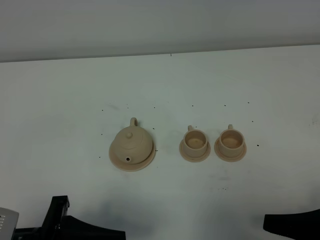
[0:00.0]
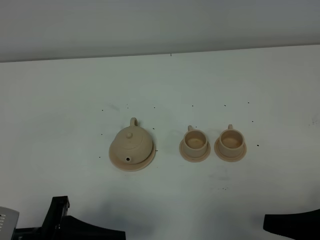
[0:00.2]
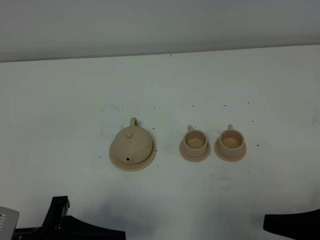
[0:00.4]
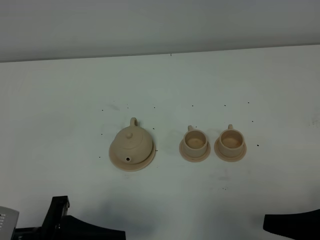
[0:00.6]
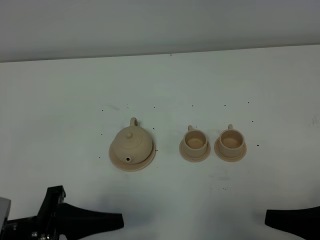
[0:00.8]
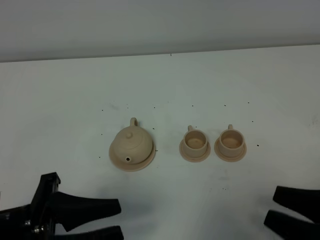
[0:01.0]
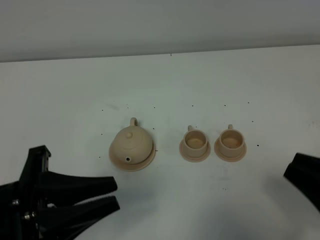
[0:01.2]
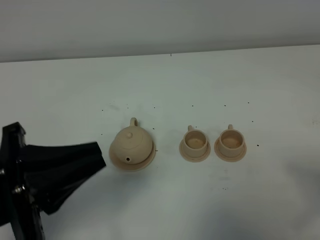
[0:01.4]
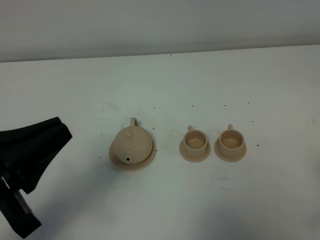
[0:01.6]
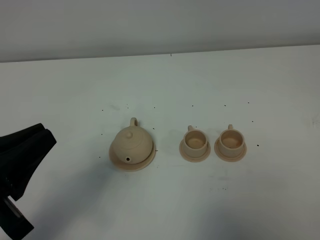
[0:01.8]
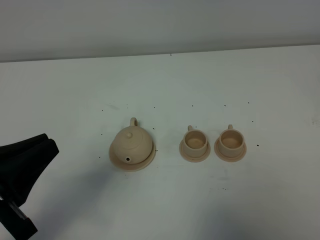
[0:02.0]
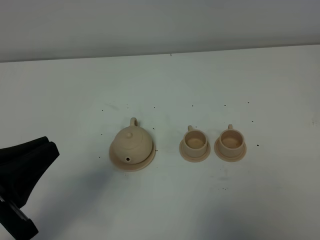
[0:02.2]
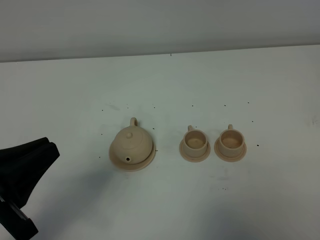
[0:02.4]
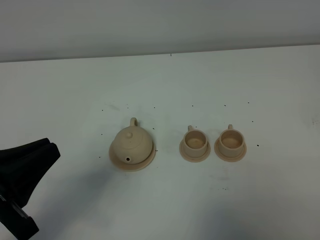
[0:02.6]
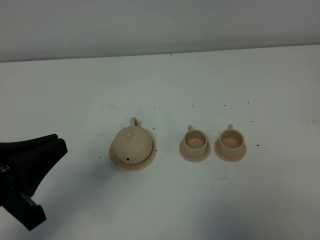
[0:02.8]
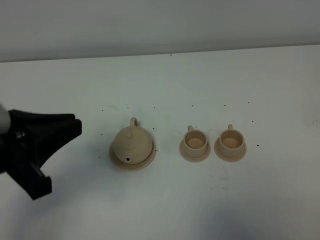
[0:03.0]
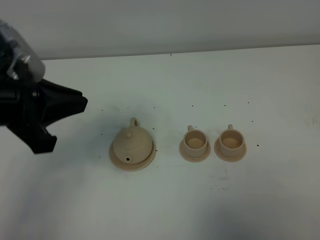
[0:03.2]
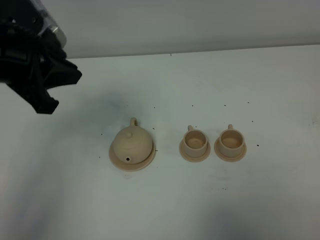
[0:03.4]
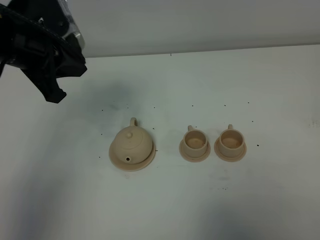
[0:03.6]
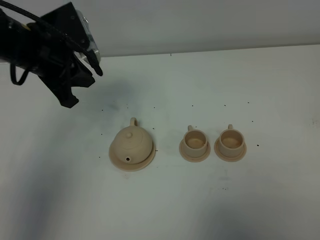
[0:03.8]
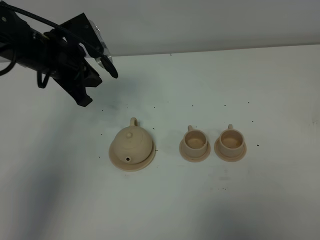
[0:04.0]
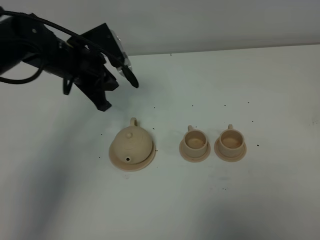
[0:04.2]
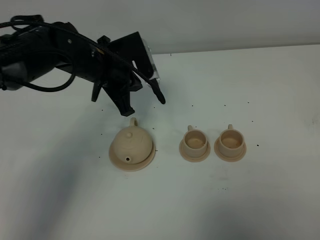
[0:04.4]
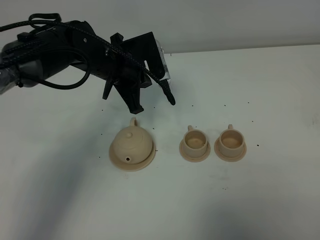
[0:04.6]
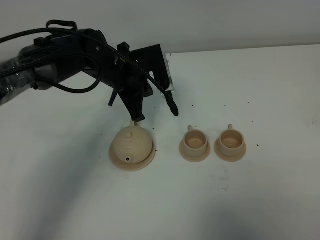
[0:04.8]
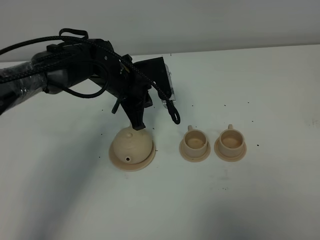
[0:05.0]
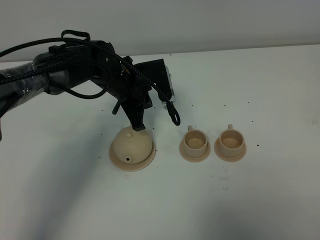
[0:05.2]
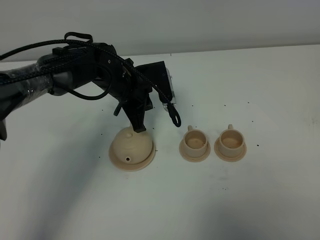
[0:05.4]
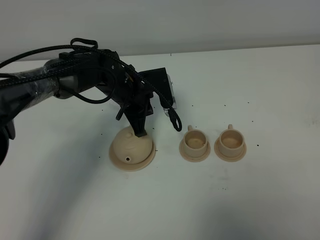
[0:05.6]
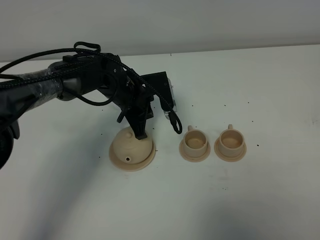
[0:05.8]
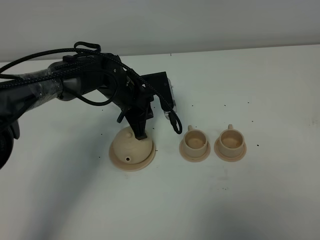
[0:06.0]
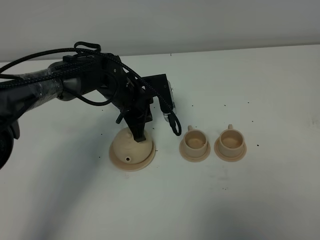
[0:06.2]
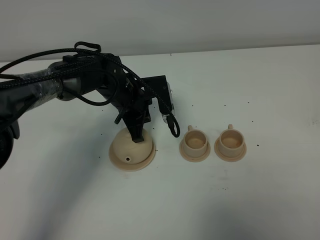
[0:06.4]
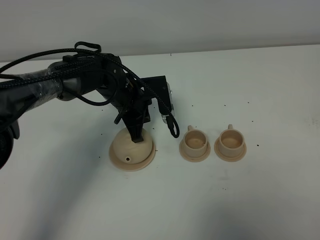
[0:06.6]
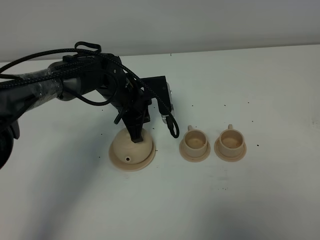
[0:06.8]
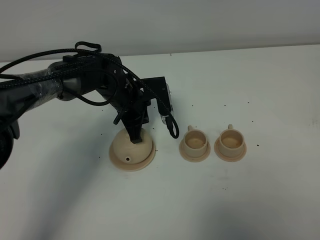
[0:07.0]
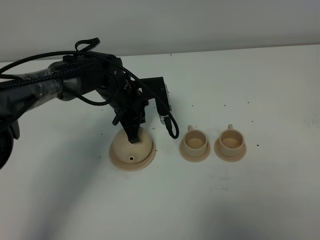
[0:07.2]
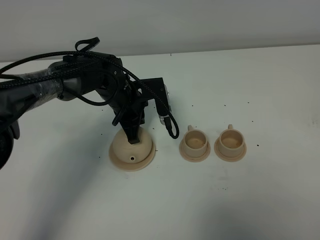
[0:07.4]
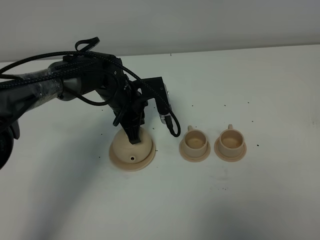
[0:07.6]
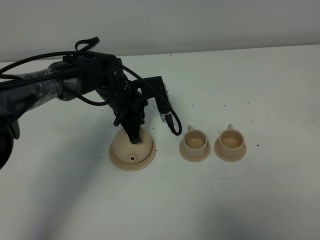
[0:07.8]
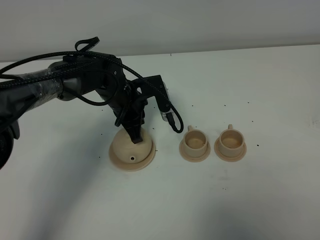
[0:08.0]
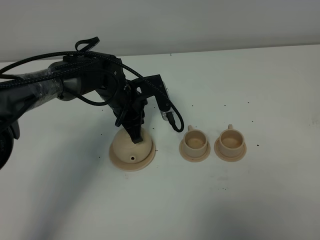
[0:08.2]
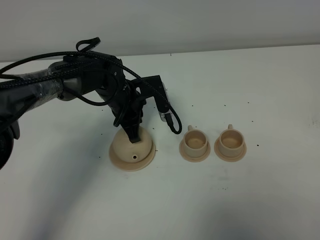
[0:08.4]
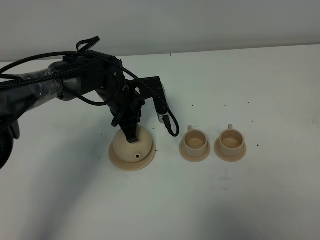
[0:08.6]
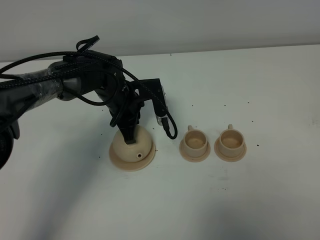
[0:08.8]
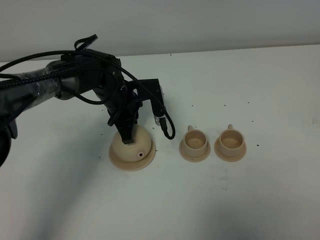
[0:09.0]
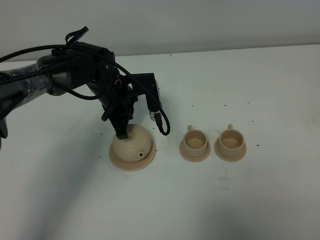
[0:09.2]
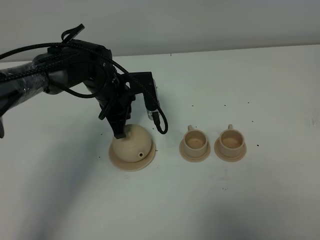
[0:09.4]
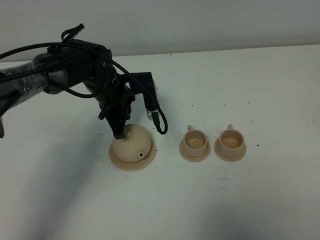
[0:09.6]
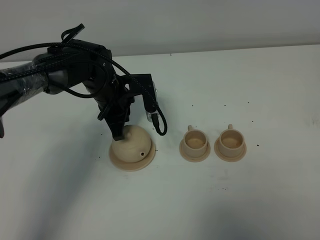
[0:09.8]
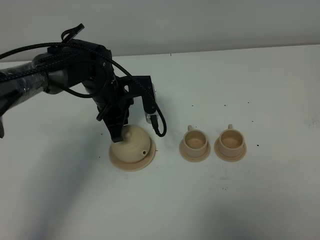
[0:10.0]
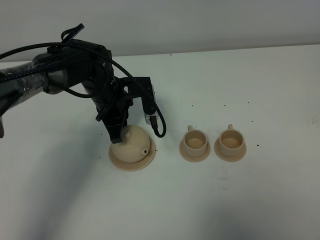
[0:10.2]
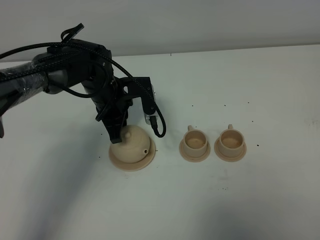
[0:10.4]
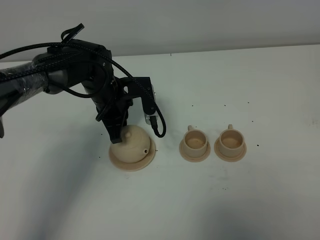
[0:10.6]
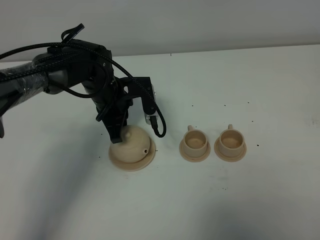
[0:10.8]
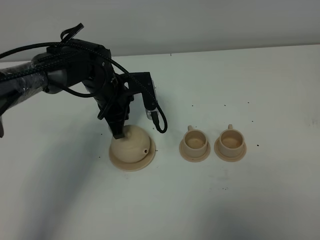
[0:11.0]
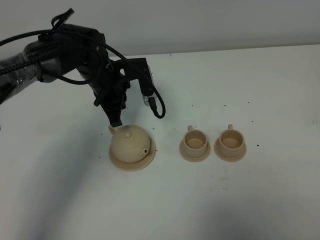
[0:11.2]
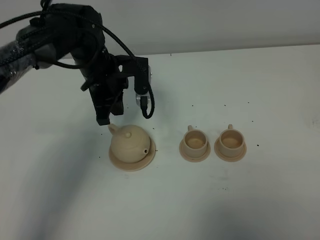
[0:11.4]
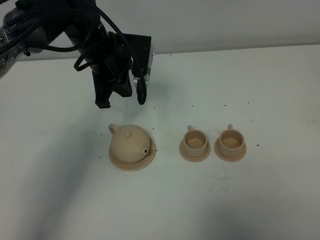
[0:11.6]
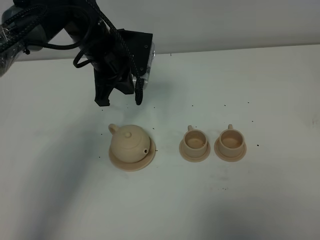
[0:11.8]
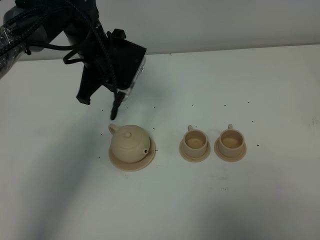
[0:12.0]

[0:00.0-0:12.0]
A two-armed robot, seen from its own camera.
Task of the whole recording: grasp the brown teapot and pour the tea into the two brown teacups one by one, put the brown teapot back in its original place.
0:00.0 to 0:01.6: The left gripper heads upward, covering approximately 10 cm, and closes its fingers. Meanwhile the right gripper shifts approximately 10 cm upward and to the right, and closes.
0:01.6 to 0:03.0: The left gripper changes place by about 5 cm.
0:03.0 to 0:04.4: The left gripper shifts approximately 30 cm forward, downward and to the right.
0:04.4 to 0:06.0: The left gripper is displaced downward by some 10 cm.
0:06.0 to 0:07.6: The grippers move only a little.
0:07.6 to 0:09.0: The two grippers keep their place.
0:09.0 to 0:10.4: The grippers stay close to where they were, moving slightly.
0:10.4 to 0:12.0: The left gripper goes about 10 cm upward.

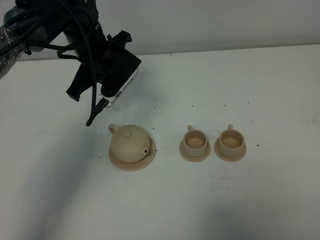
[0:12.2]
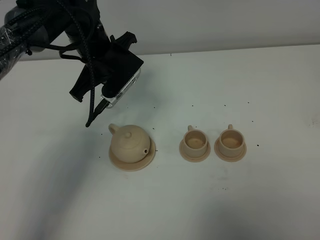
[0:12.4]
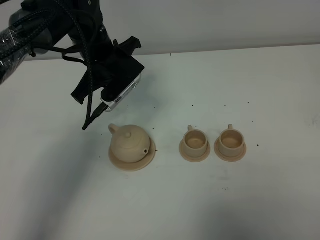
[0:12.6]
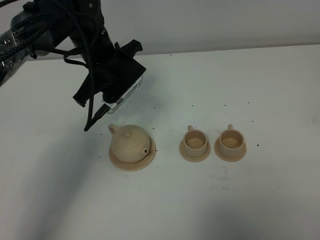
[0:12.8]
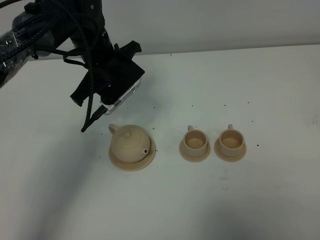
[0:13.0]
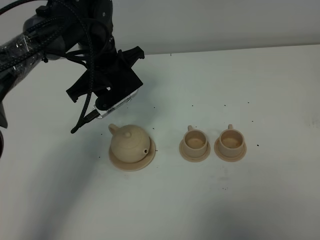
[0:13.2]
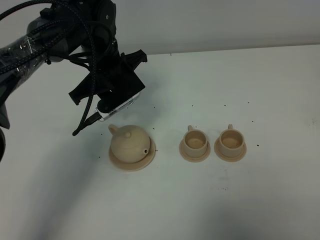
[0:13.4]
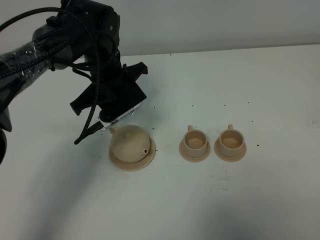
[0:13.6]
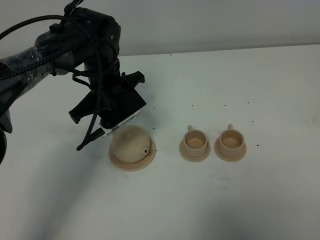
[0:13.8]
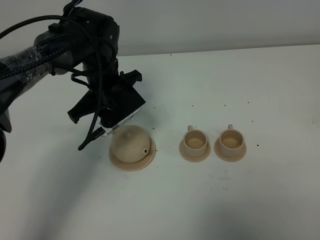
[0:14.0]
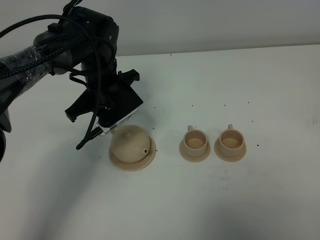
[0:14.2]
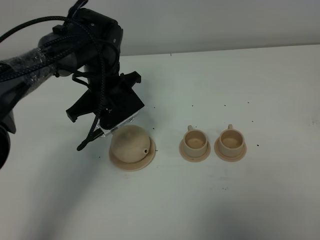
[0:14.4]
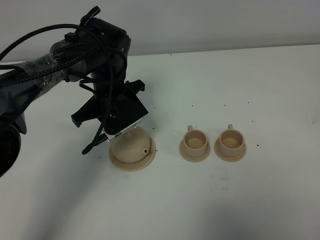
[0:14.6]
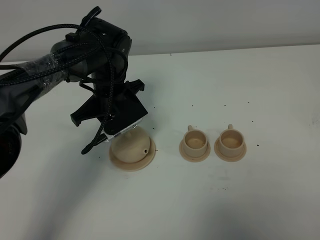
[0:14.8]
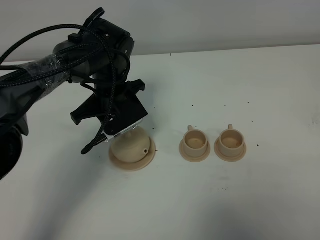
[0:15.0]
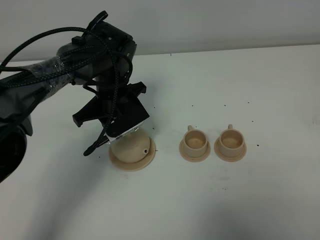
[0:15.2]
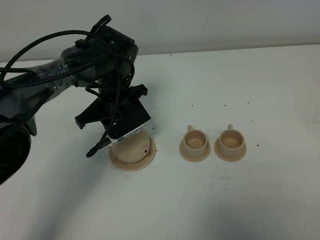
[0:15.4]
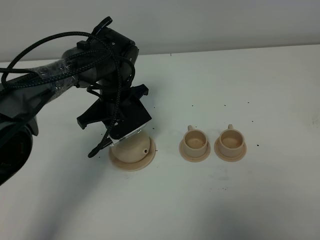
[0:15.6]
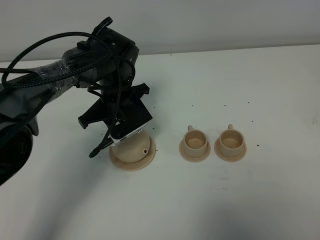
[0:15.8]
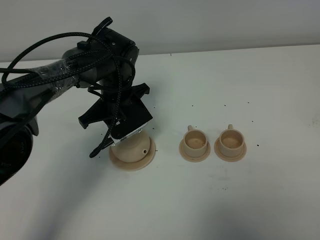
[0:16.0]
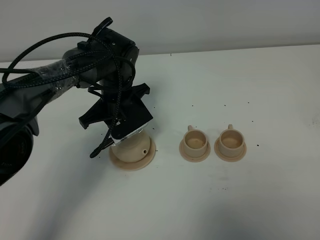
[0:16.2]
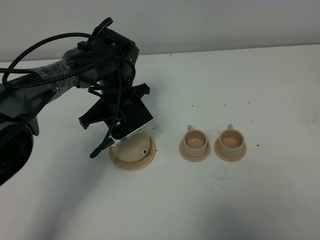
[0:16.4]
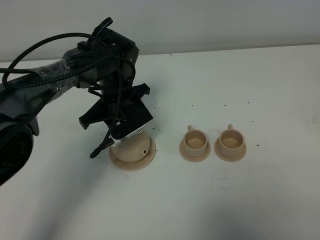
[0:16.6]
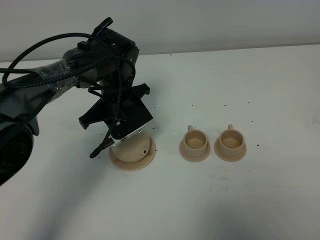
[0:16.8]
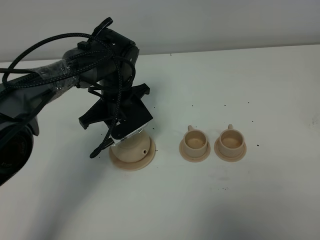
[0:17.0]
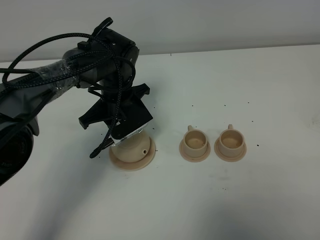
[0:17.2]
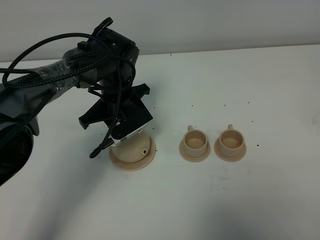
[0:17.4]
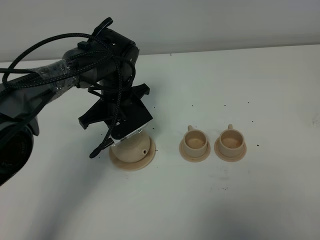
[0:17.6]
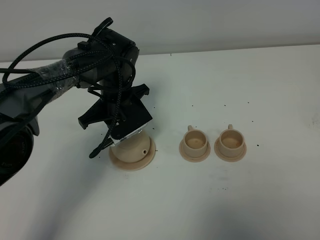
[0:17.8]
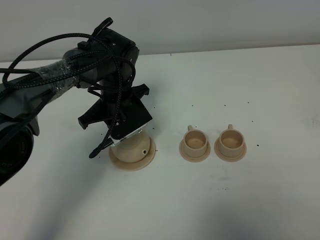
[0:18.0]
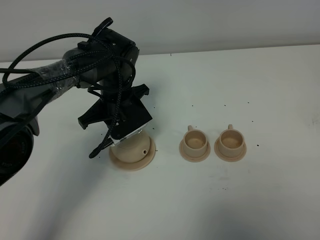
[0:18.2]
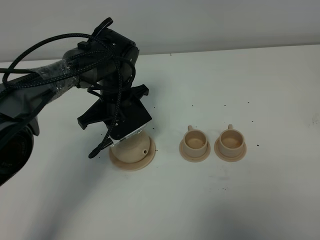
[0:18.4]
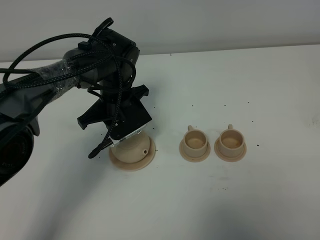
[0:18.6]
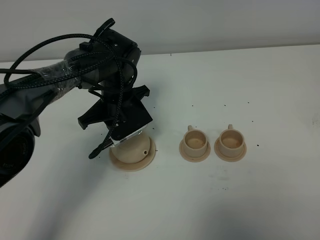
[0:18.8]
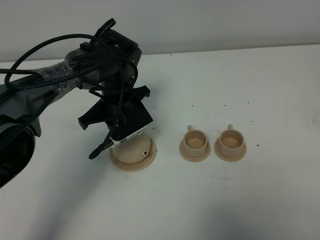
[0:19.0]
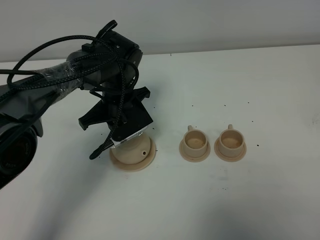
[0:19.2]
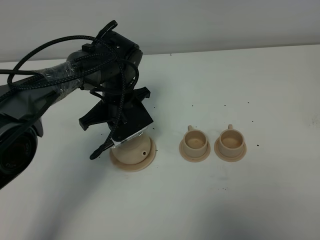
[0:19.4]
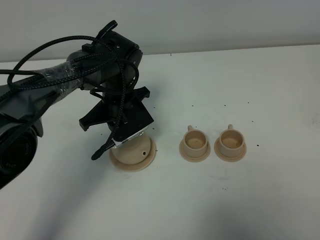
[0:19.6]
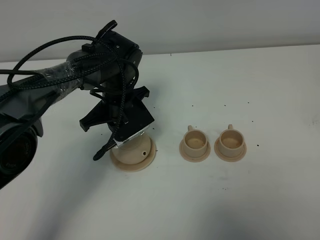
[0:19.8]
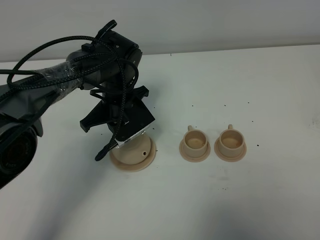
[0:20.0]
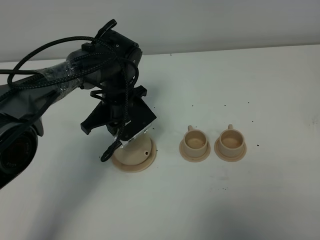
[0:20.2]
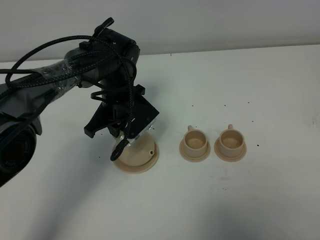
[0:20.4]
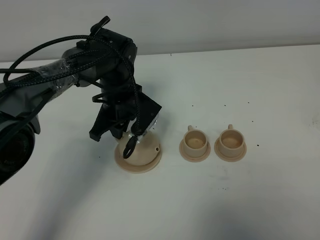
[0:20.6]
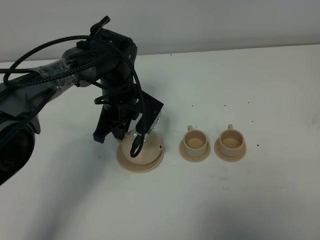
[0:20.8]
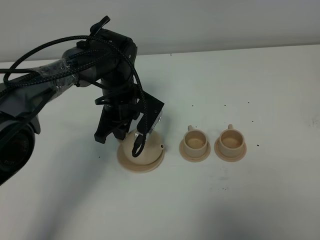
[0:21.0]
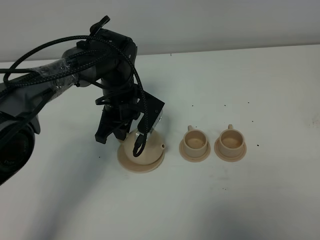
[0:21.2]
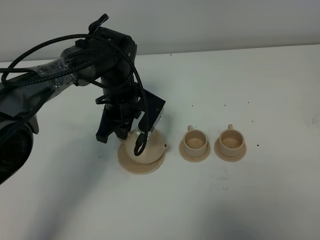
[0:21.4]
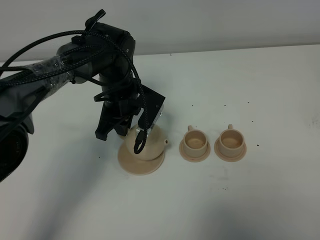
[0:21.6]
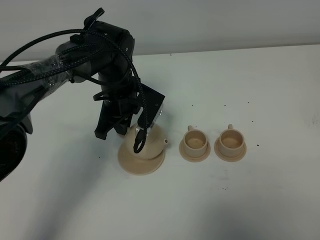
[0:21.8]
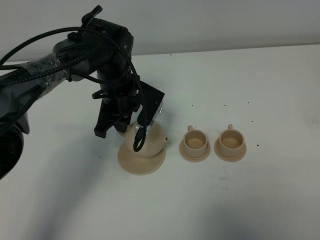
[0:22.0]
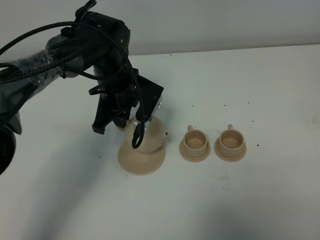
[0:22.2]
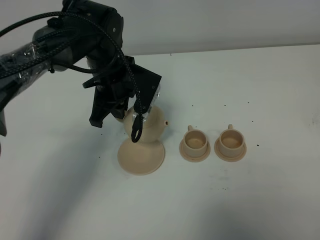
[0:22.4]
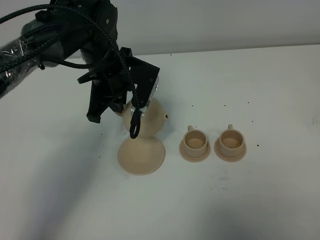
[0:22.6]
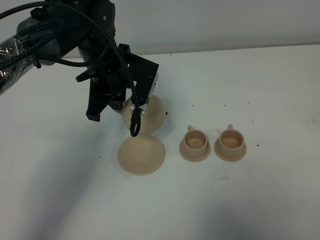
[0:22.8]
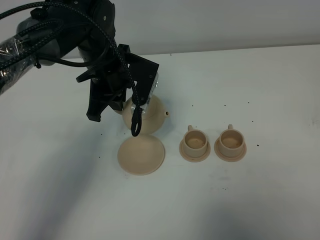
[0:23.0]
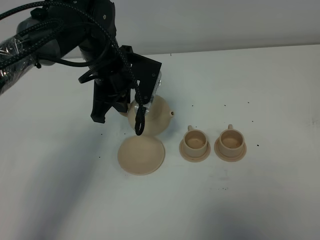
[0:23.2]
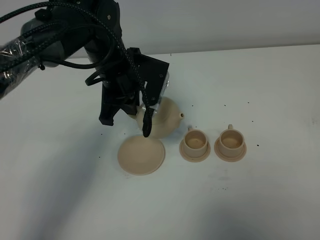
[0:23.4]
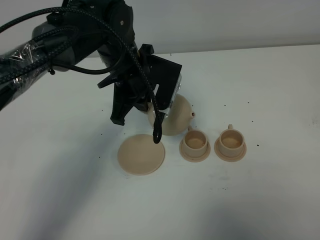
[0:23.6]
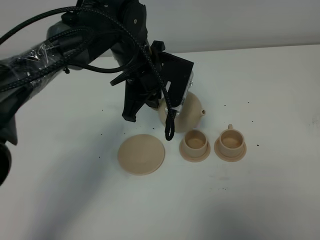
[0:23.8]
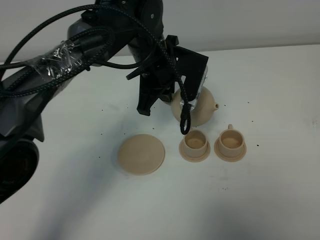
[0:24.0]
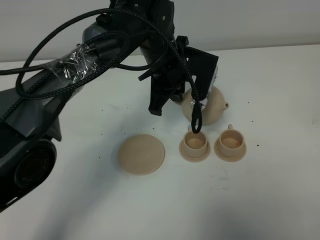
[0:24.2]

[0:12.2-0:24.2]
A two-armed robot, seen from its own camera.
Task of the whole recording: grasp the brown teapot and pour the tea into the two brown teacups one by one, put the brown teapot back in its original place.
Step, 0:12.2 to 0:21.2: Pick up the teapot with the left gripper.
0:12.2 to 0:13.8: The left gripper is displaced downward by about 5 cm, and opens.
0:13.8 to 0:15.2: There are only small adjustments of the grippers.
0:15.2 to 0:18.2: Both grippers stay about where they are.
0:18.2 to 0:19.8: The left gripper closes its fingers.
0:21.2 to 0:22.6: The left gripper travels upward by roughly 10 cm.
0:22.6 to 0:24.2: The left gripper shifts about 10 cm to the right.
